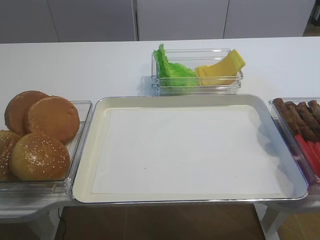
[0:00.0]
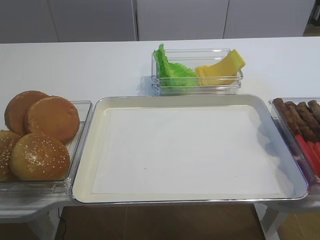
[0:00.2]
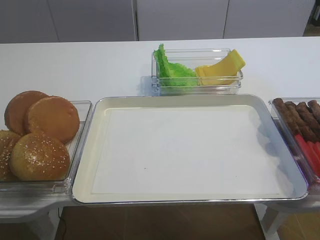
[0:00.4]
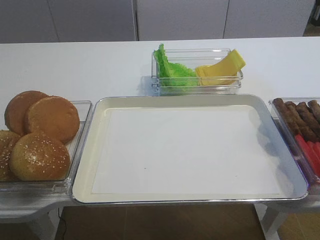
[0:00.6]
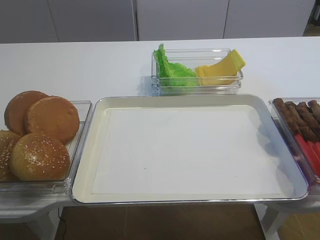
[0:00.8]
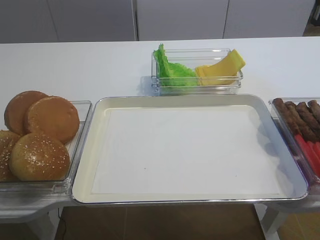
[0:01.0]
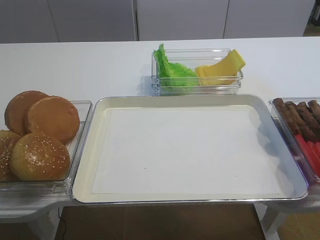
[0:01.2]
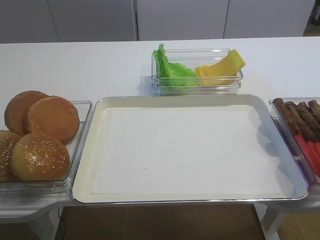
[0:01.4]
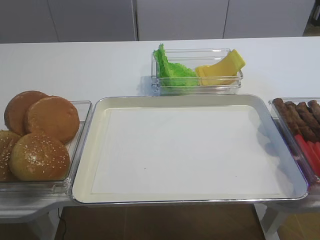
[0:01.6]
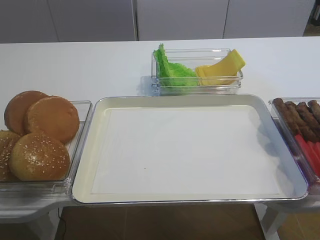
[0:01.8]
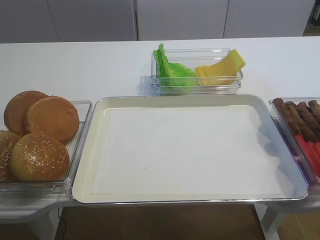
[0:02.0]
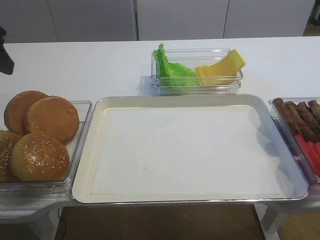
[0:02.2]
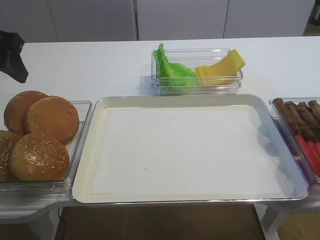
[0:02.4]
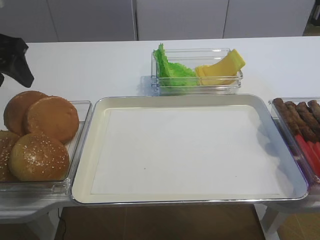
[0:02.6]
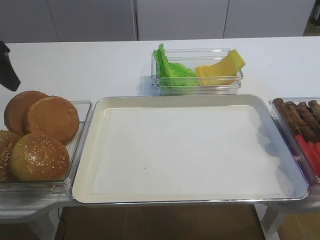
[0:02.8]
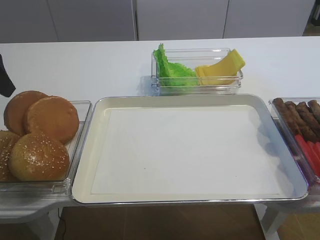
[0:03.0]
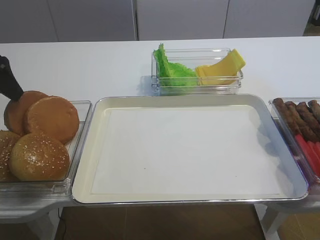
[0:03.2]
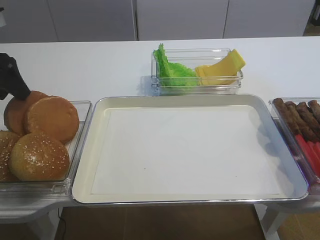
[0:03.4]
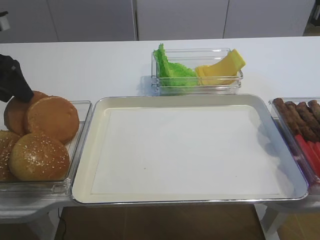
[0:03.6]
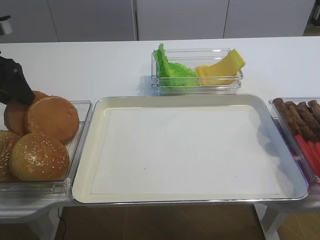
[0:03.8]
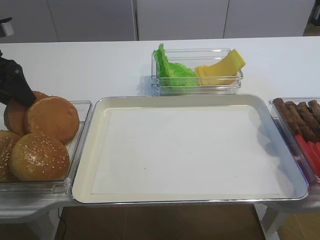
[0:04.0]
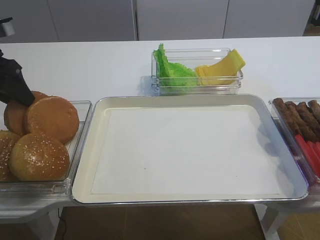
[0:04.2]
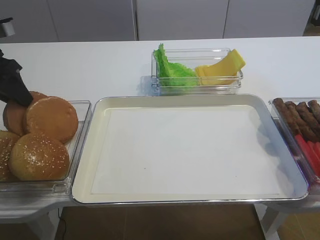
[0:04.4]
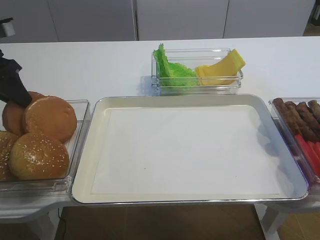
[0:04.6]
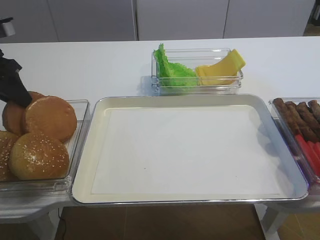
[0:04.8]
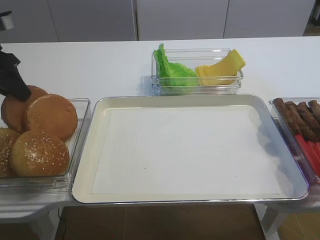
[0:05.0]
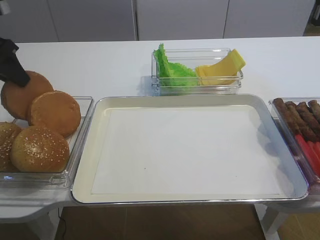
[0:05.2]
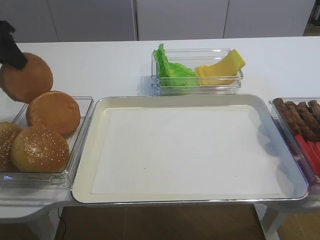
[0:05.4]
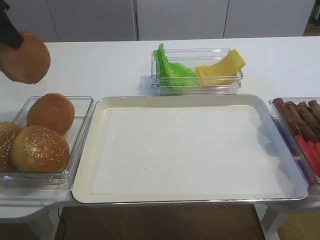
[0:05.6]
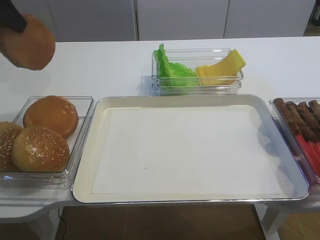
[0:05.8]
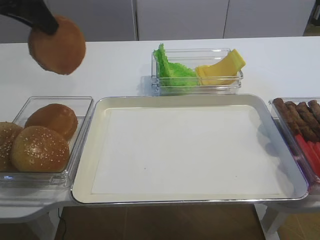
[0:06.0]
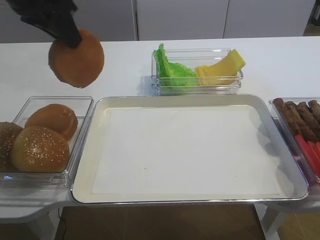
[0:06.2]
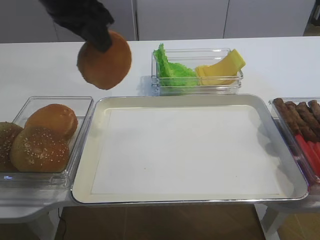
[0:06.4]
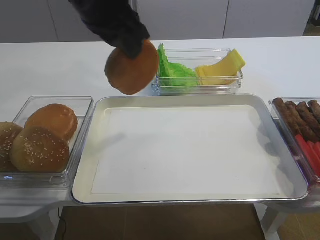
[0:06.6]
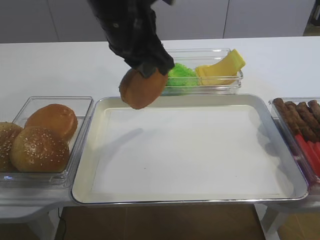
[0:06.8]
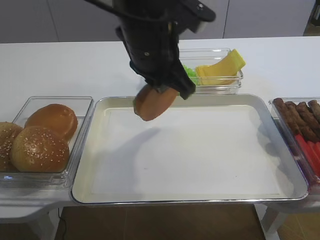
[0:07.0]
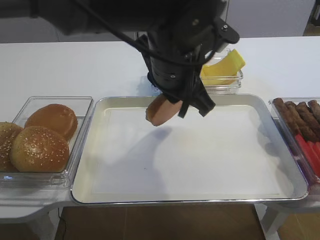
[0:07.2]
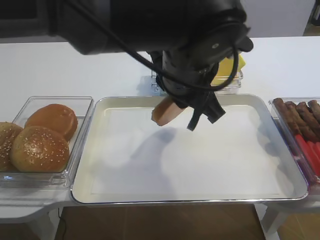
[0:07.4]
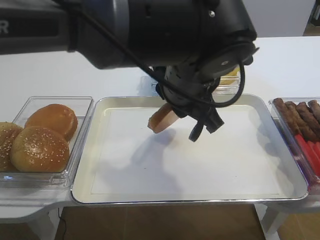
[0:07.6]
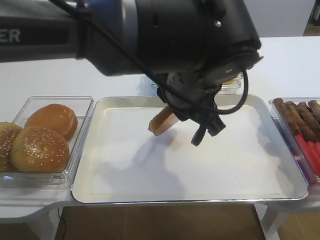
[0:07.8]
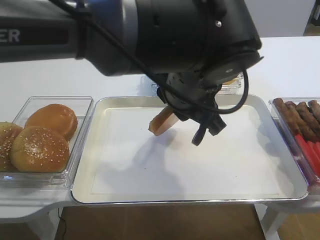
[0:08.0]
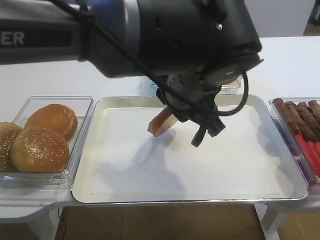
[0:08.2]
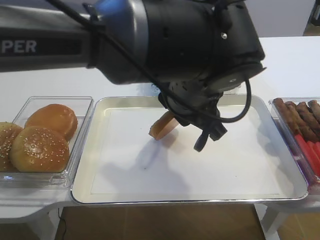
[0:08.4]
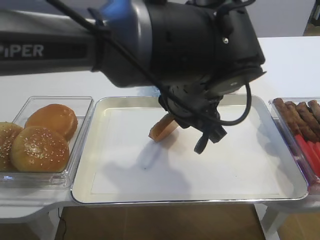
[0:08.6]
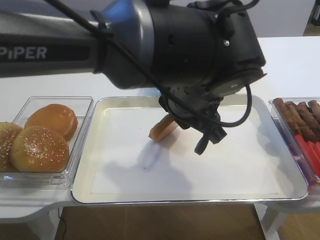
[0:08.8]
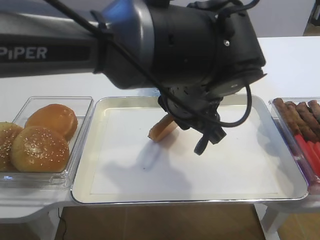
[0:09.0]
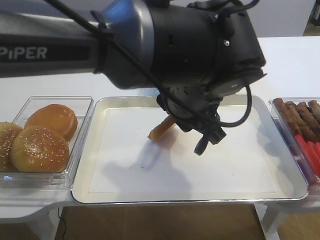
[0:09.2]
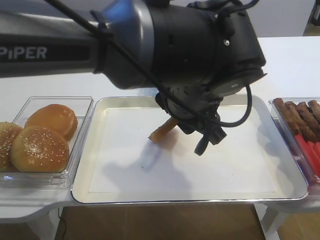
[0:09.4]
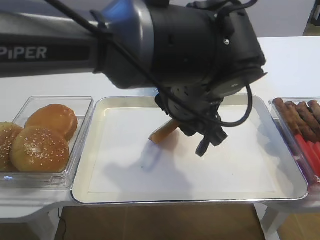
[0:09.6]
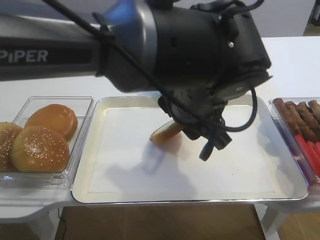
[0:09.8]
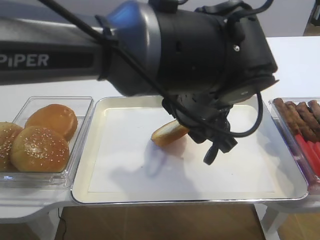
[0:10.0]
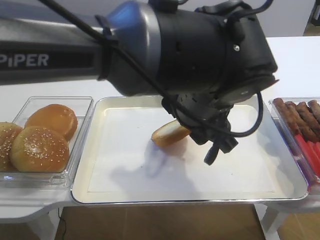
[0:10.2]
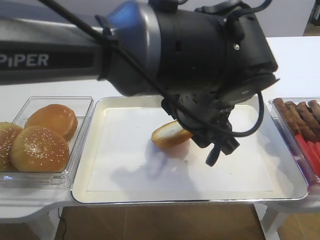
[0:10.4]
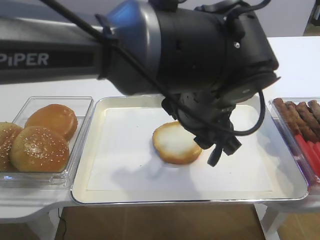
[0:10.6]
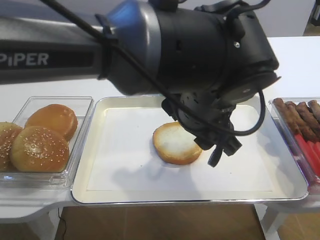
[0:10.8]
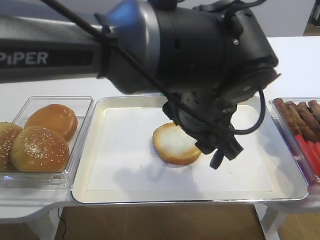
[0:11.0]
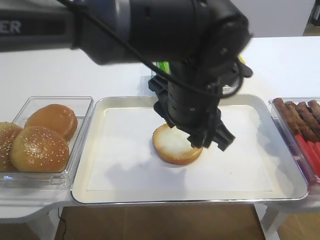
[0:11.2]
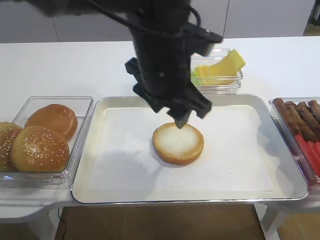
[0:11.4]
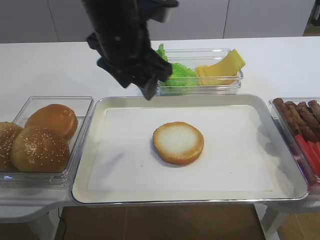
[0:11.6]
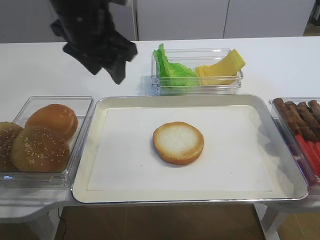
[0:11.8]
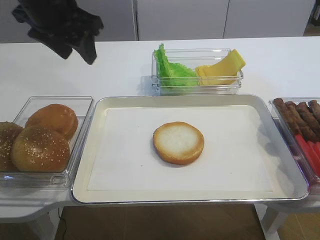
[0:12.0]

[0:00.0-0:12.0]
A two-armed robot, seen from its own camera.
Step, 0.0 to 5.2 s: Pick up the bread slice with the left gripper.
Step, 5.6 to 11.0 s: Place the bread slice on the tray with the left gripper.
3.0 to 4.4 s: The left gripper closes up.
4.4 to 6.0 s: The left gripper is displaced upward and to the right by roughly 15 cm.
6.0 to 7.6 s: The left gripper heads to the right, covering roughly 25 cm.
9.0 to 10.4 s: The left gripper opens.
10.4 to 12.0 s: The left gripper moves to the left, forward and upward, about 25 cm.

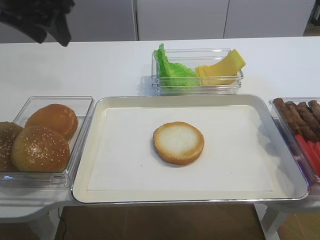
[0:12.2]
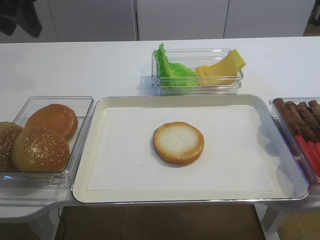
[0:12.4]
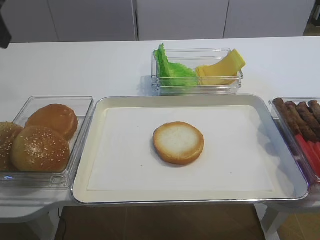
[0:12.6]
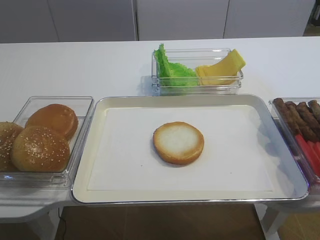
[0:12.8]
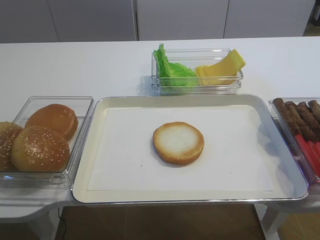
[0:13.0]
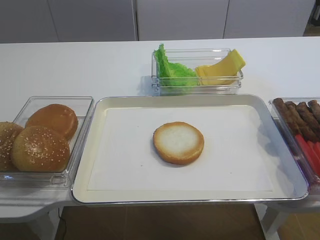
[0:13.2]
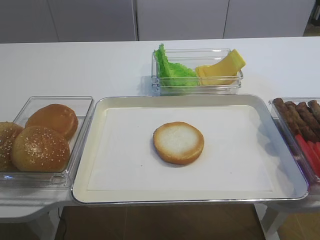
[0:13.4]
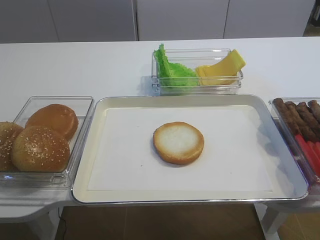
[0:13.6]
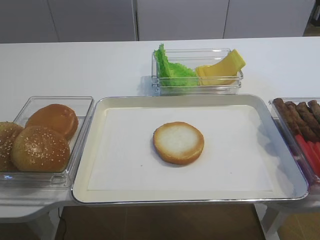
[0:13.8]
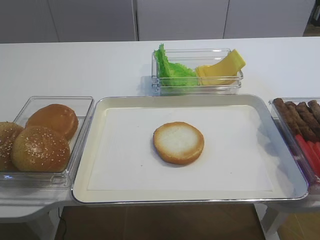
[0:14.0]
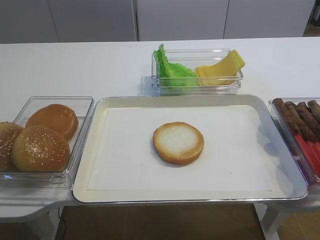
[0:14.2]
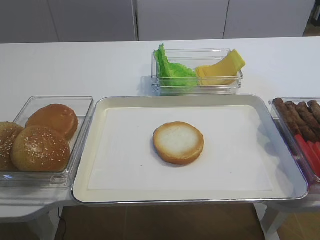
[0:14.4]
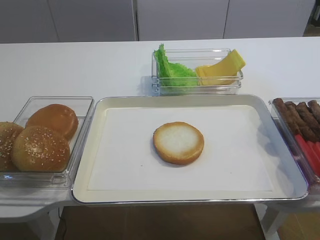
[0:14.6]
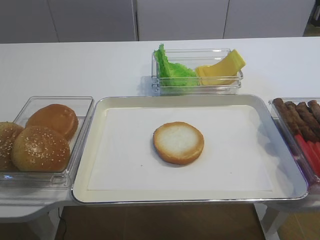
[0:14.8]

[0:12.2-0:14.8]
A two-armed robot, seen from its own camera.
12.2 to 13.4 s: The left gripper heads backward, covering some 30 cm.

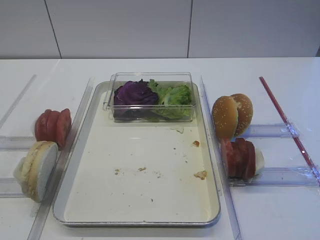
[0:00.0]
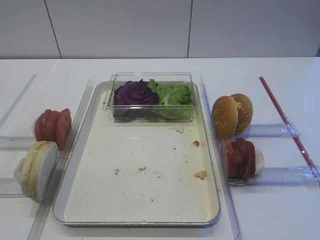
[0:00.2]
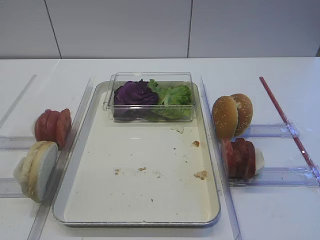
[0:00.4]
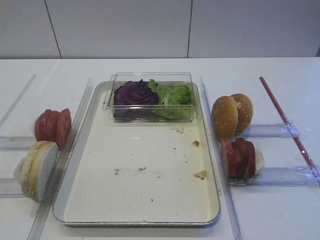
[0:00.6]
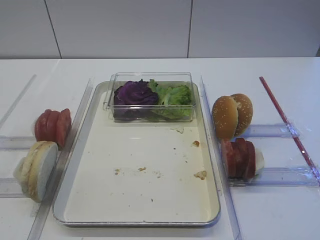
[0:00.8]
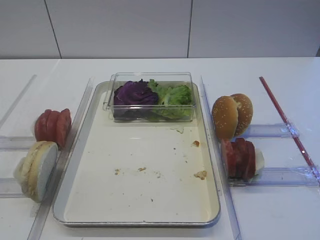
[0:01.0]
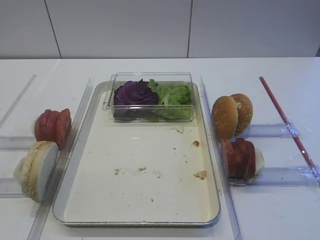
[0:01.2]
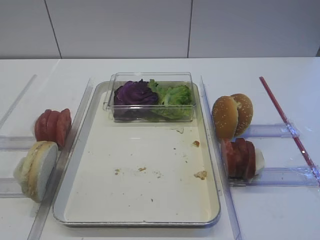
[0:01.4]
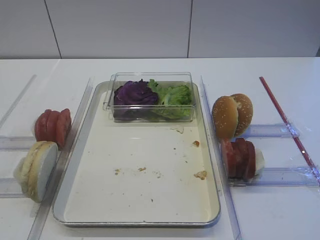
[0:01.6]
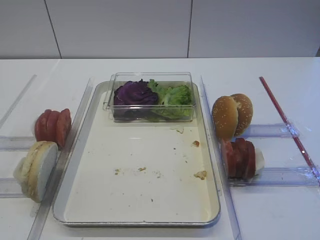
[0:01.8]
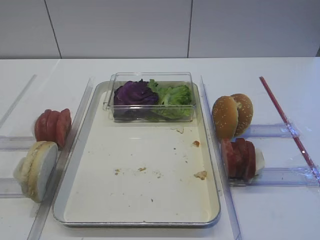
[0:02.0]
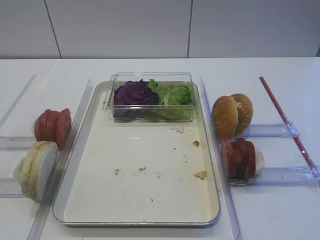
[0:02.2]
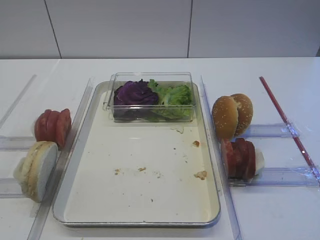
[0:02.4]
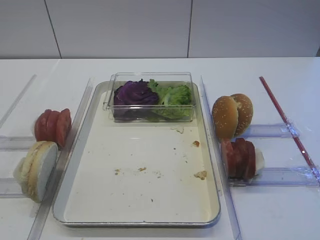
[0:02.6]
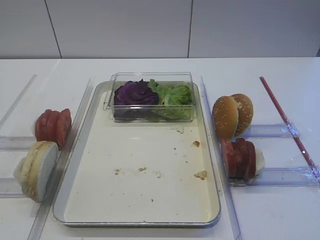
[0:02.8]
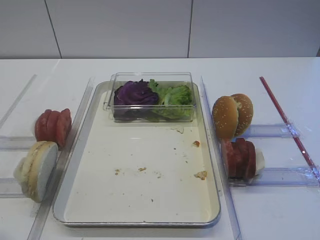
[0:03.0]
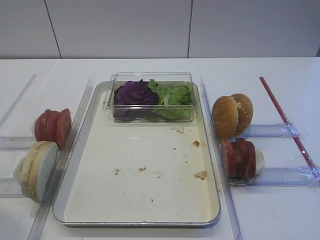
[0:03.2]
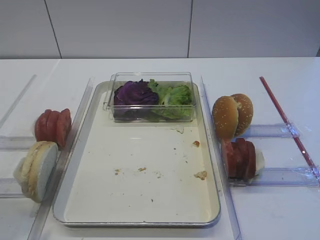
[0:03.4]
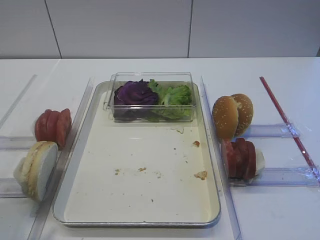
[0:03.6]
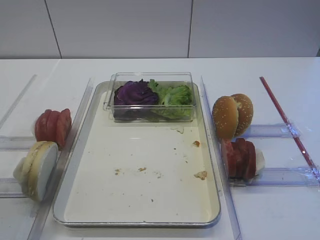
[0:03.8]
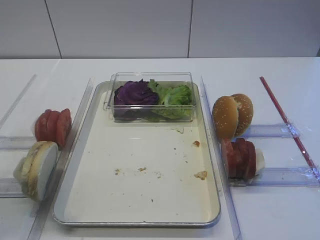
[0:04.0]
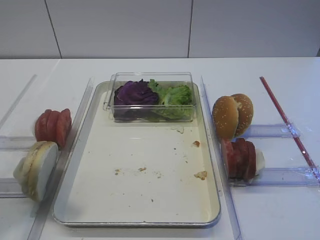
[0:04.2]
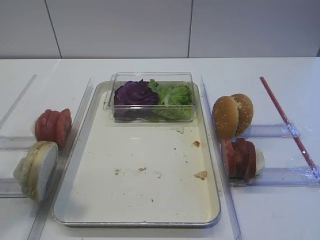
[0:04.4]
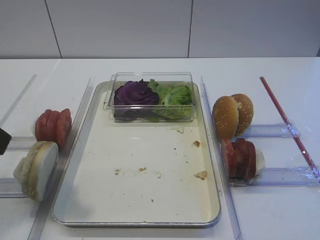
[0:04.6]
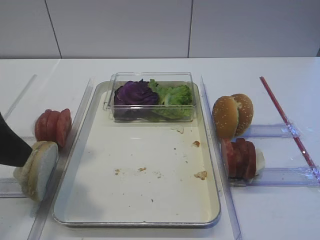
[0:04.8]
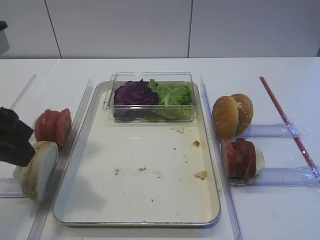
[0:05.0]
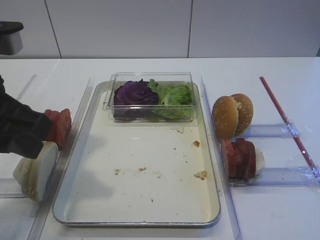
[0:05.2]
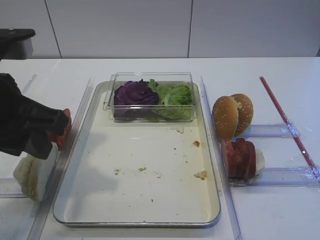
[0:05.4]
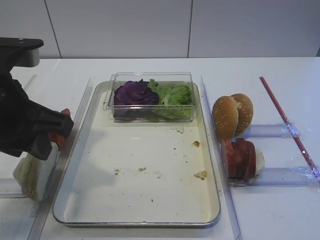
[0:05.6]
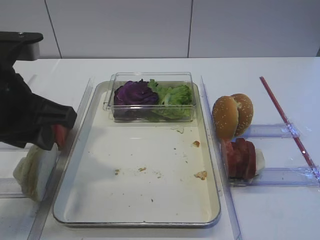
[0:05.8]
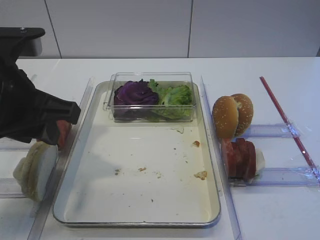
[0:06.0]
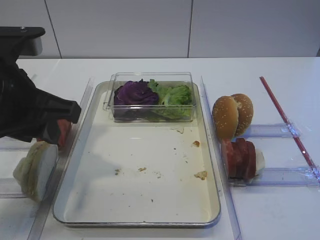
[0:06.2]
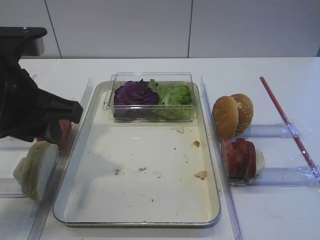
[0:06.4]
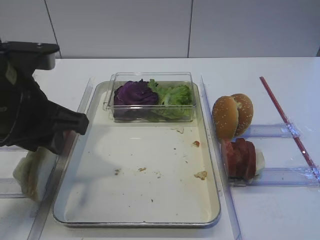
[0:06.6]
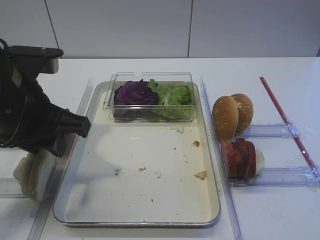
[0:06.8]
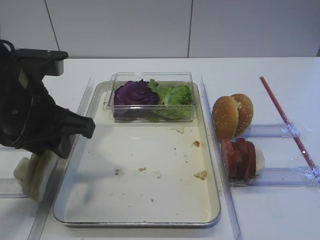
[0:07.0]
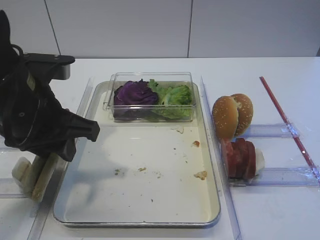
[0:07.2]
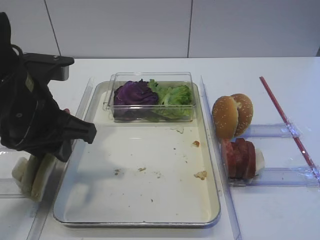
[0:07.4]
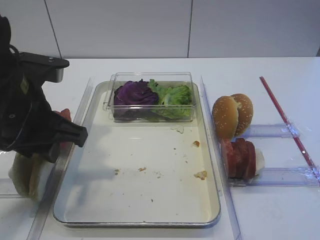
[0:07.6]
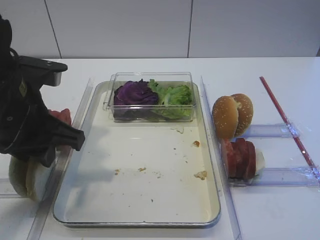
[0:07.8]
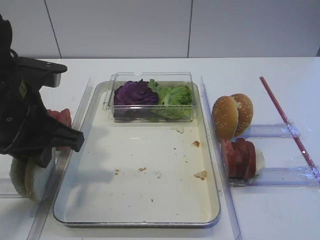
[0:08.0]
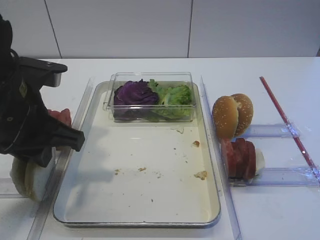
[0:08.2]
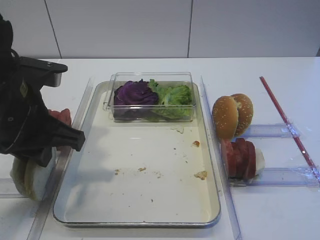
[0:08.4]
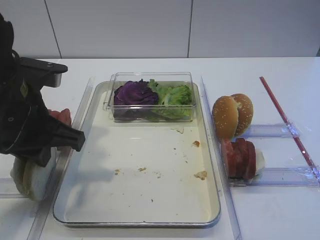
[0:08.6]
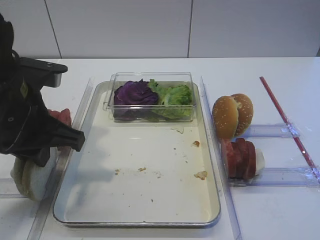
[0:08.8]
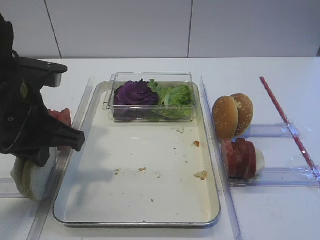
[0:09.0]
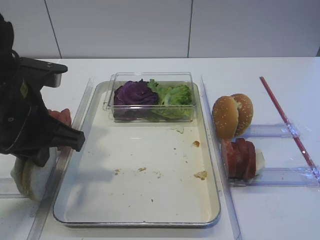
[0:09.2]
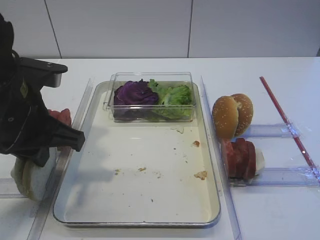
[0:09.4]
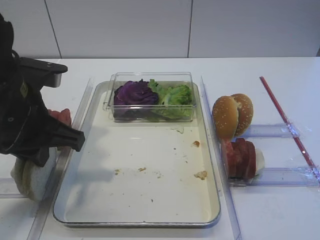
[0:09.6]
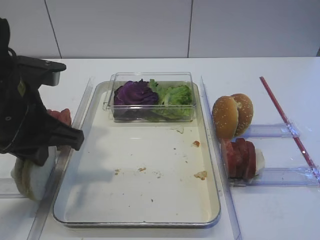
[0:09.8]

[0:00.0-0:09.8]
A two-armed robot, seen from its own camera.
2.8 to 4.2 s: The left gripper travels forward and upward by about 15 cm, and closes.
4.2 to 5.6 s: The left gripper heads forward, to the right and downward, covering roughly 10 cm.
5.6 to 8.4 s: There are only small adjustments of the grippers.
8.4 to 9.8 s: Both grippers stay about where they are.
